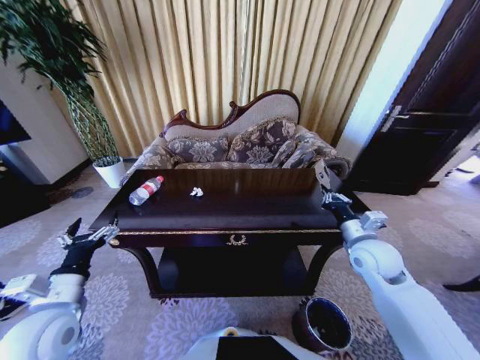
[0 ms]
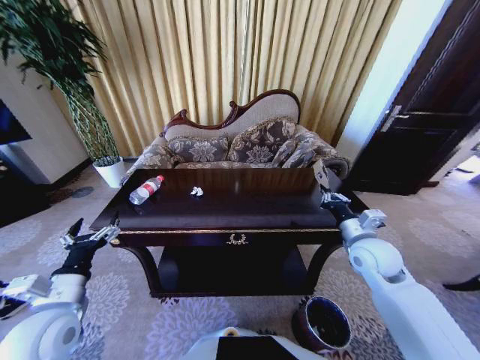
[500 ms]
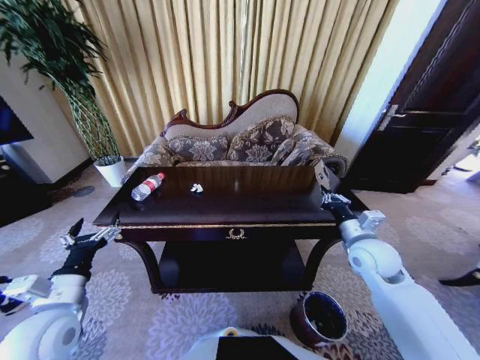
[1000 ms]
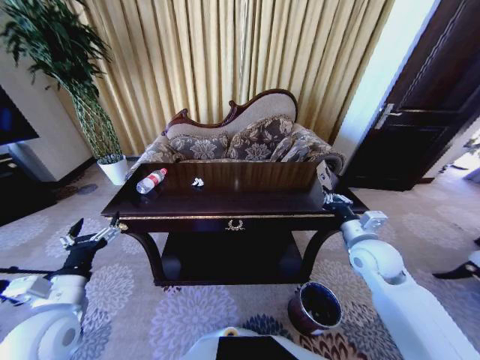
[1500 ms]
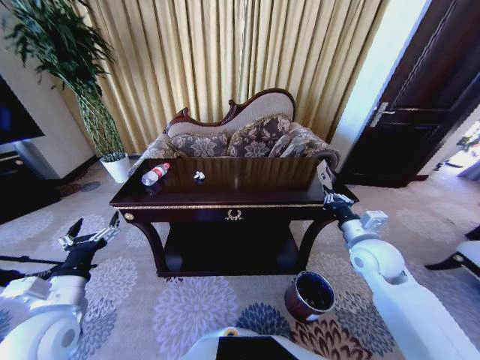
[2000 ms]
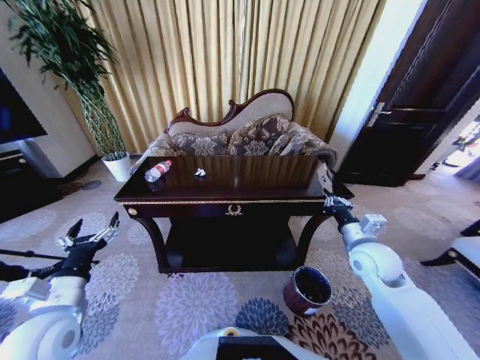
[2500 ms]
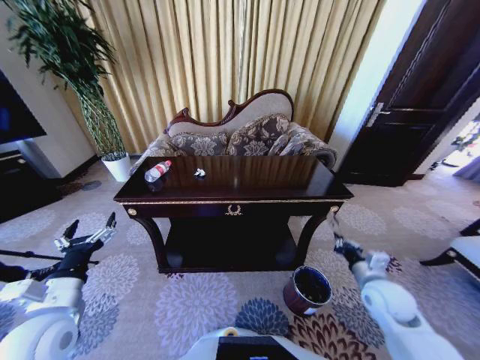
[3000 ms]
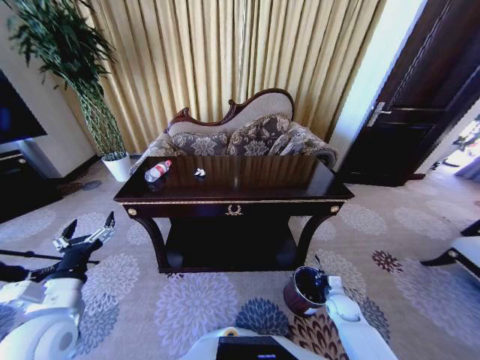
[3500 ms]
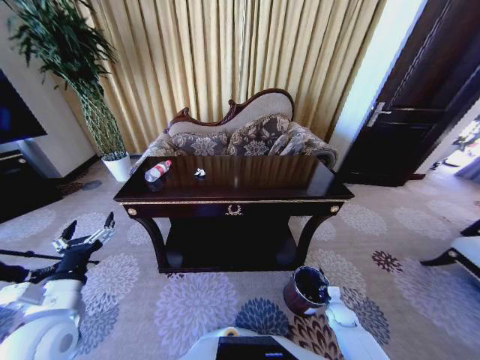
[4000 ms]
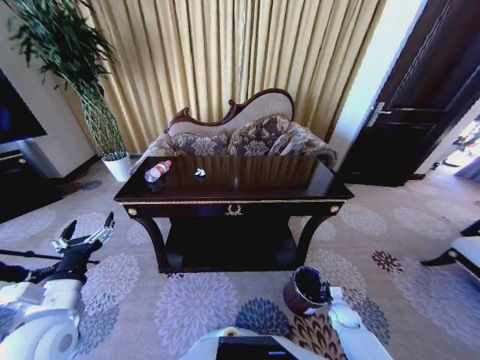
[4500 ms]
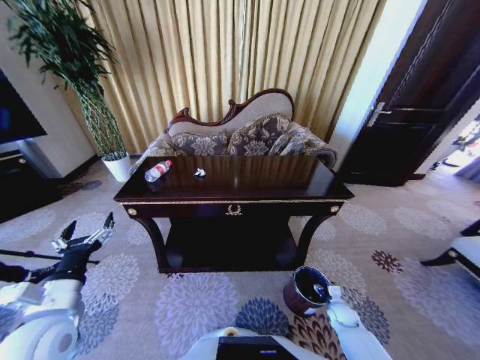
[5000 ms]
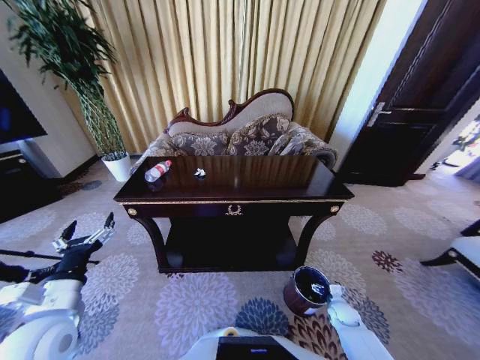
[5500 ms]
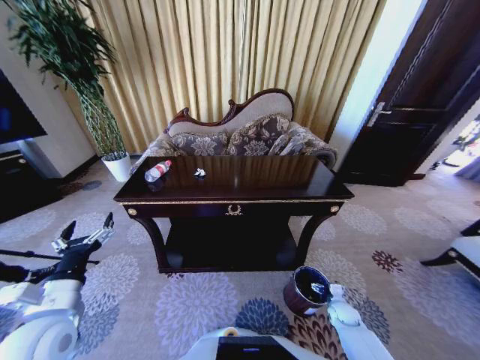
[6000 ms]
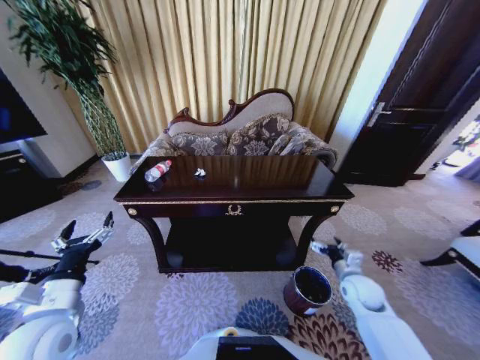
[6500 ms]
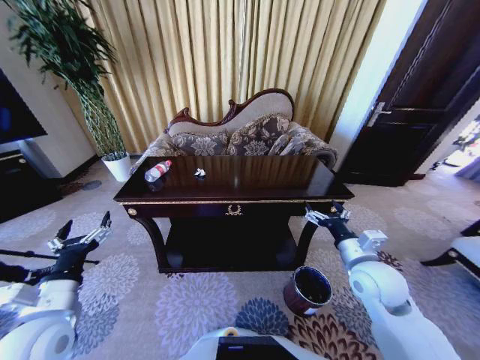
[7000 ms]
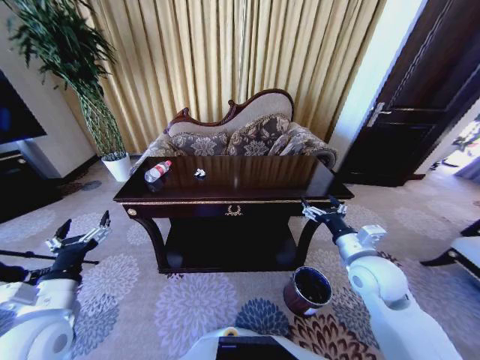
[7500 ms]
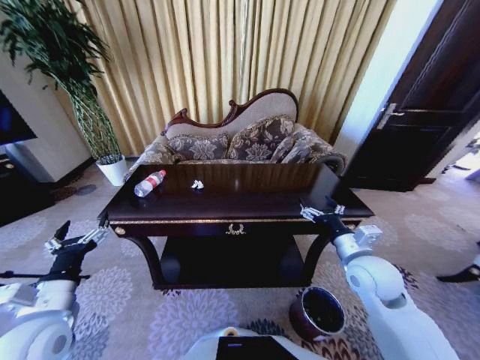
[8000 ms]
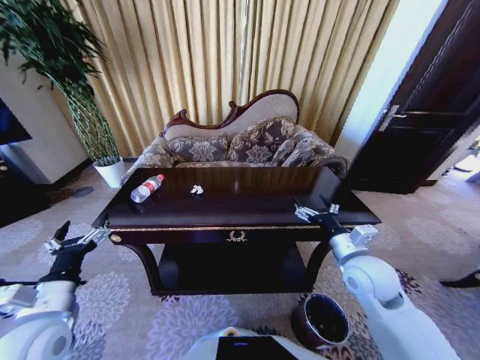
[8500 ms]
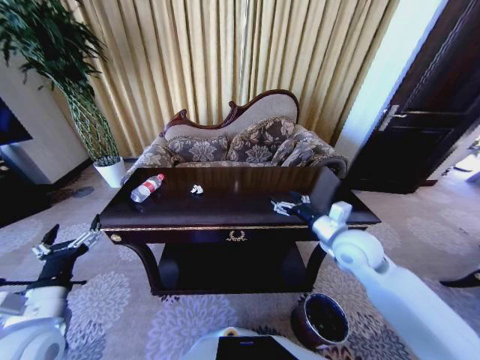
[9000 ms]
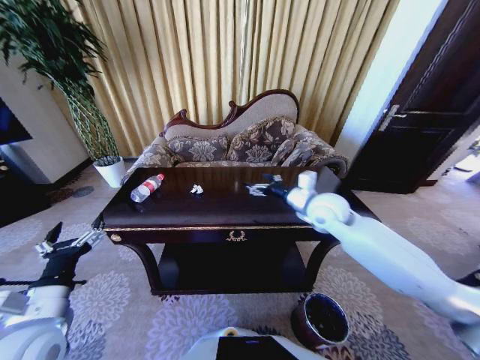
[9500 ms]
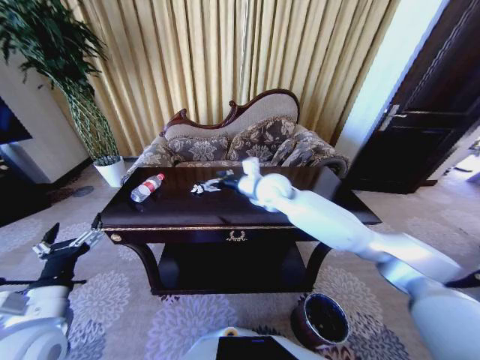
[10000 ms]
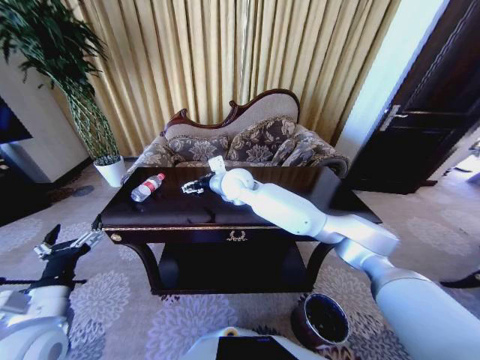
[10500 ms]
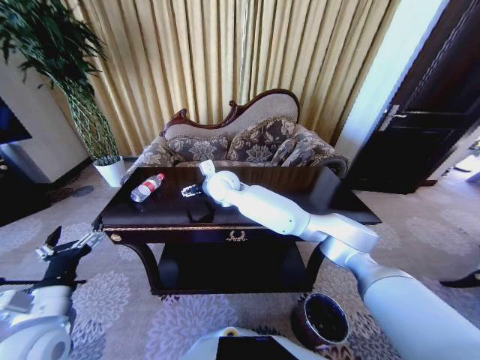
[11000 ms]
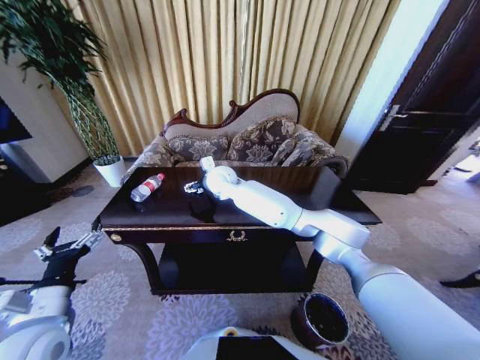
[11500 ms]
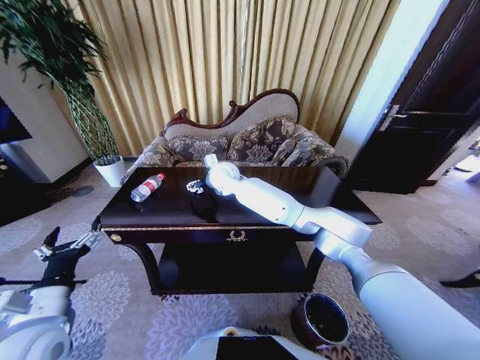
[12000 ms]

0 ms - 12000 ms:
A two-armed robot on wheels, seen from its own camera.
Task of the whole recording: Move to the front of the table and place the trash on the table into the trash bin.
2000 ms - 4000 ms: The right gripper moves downward, some 35 cm.
4000 ms - 6000 ms: The right gripper opens.
6000 ms - 8000 ms: The right gripper moves upward, some 35 cm.
8000 ms - 10000 ms: The right gripper is displaced to the left, forward and upward by some 30 cm.
10000 ms - 12000 ms: The right gripper travels to the left and forward by roughly 15 cm.

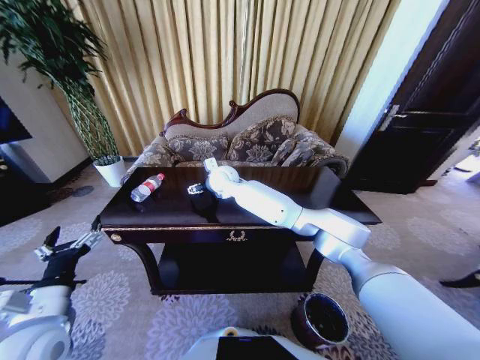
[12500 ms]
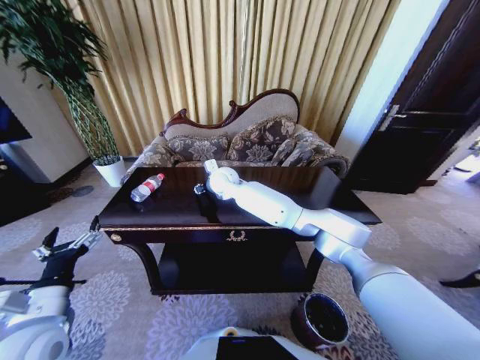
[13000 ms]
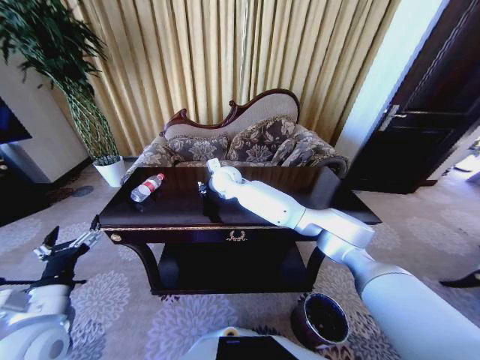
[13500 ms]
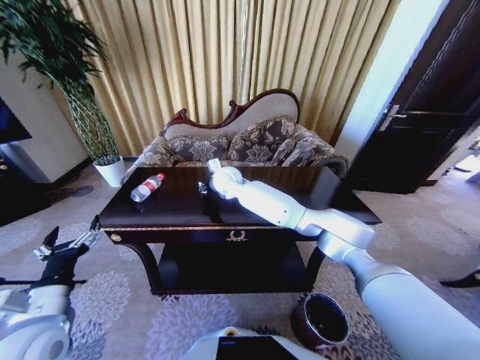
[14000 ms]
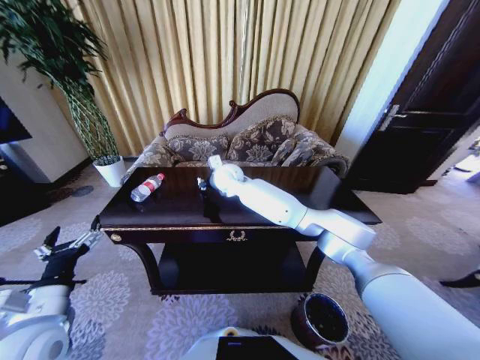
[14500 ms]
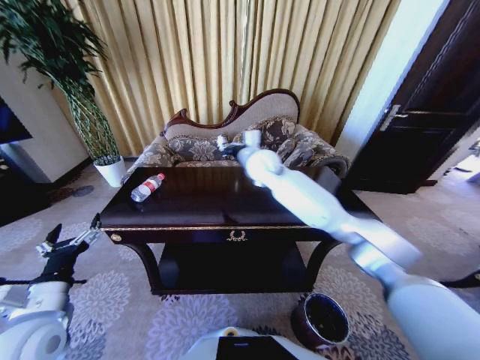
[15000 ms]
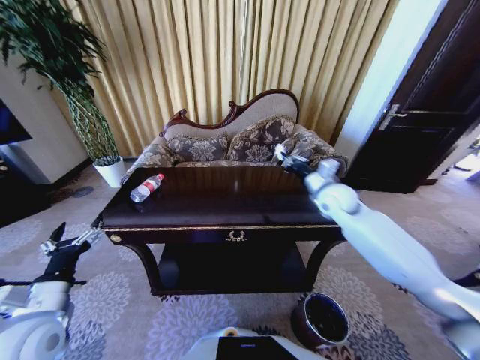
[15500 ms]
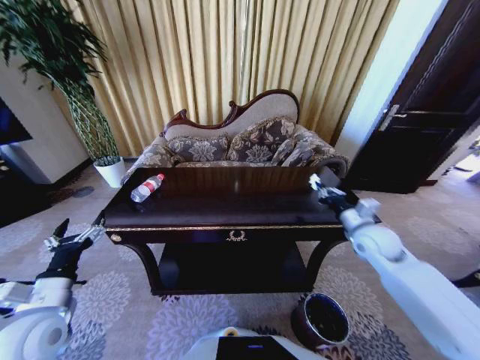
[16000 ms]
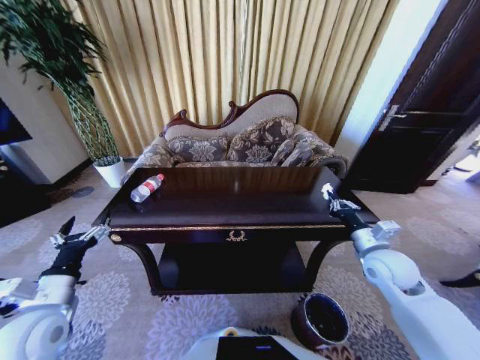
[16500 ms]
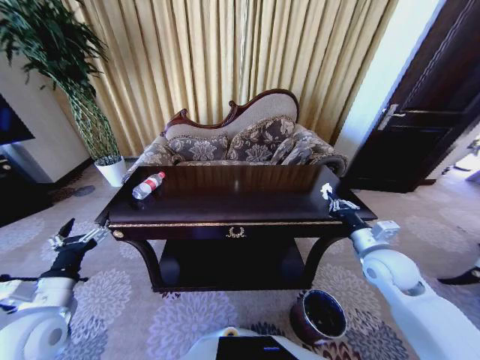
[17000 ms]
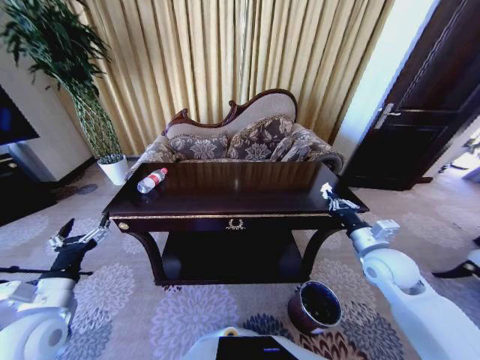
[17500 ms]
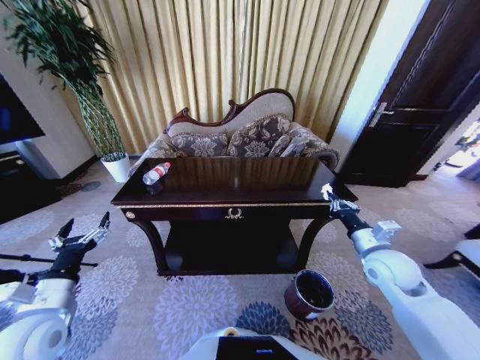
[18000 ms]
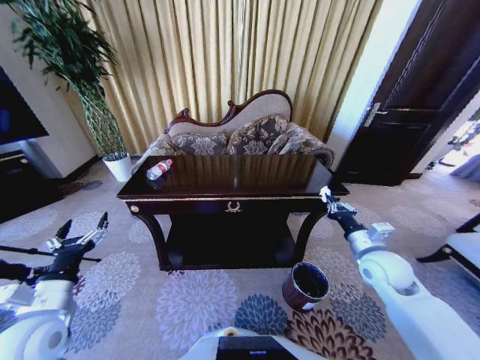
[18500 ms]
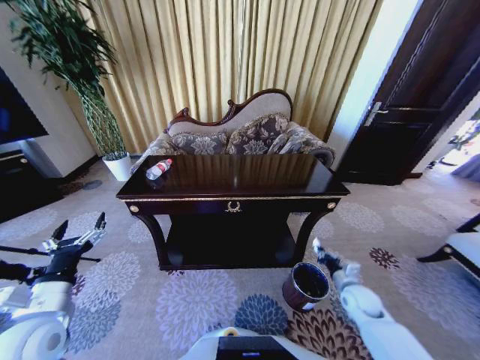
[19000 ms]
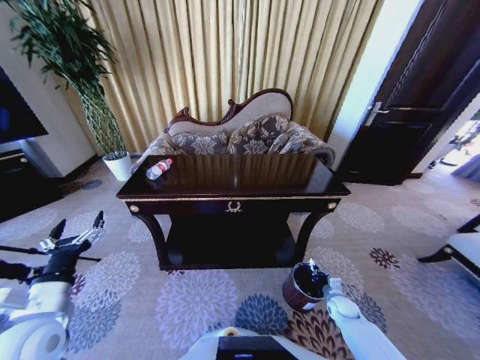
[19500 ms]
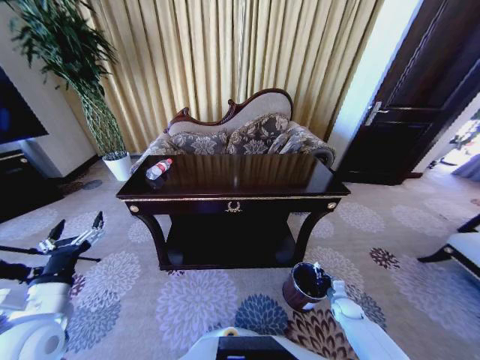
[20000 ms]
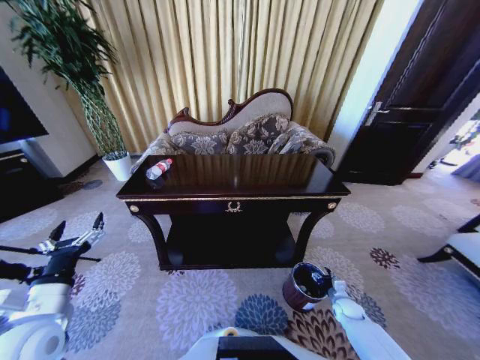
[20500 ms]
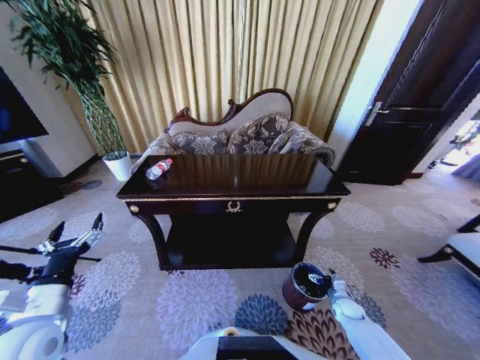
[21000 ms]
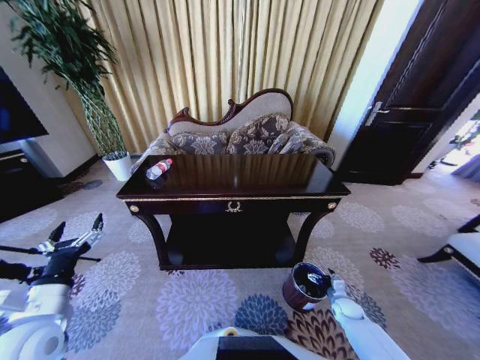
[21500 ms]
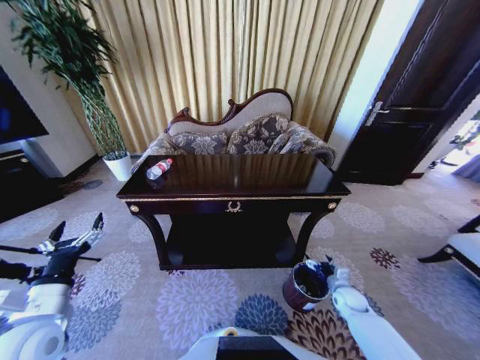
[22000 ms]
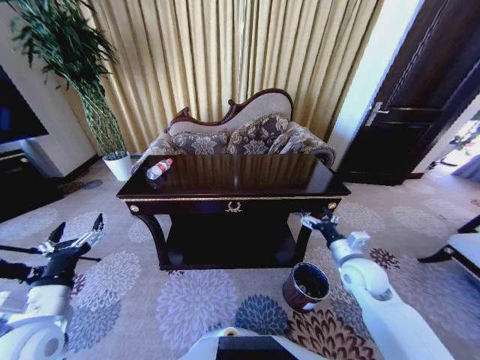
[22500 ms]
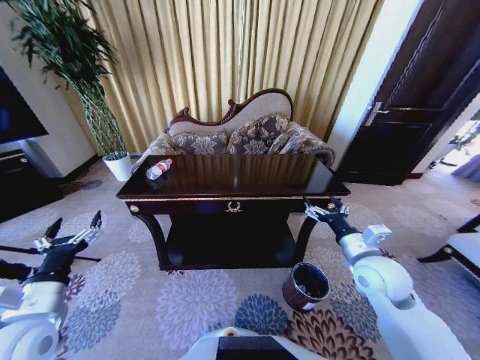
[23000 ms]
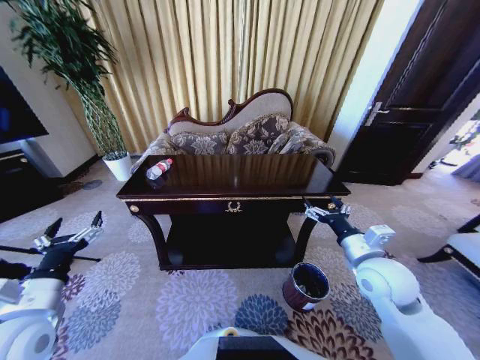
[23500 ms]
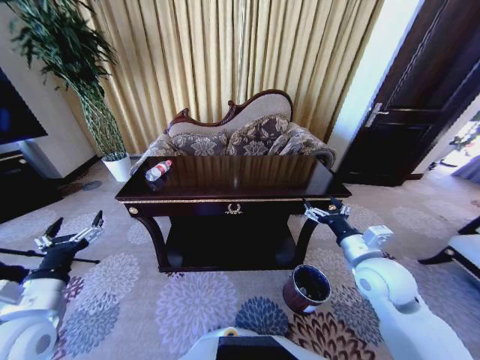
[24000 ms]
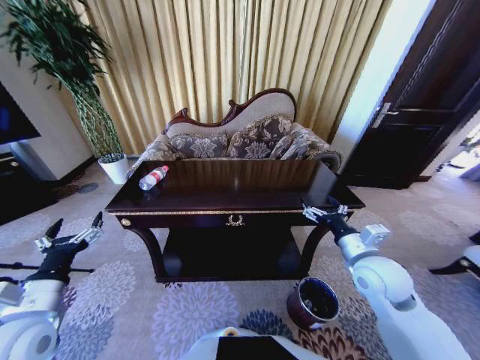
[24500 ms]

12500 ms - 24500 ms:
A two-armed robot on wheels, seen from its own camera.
Task of the whole recording: Move to the front of the table and place the trash on the table into the trash bin.
12500 ms - 14500 ms: The right gripper closes up.
14500 ms - 16500 ms: The right gripper moves to the right and backward, roughly 50 cm.
18500 ms - 20500 ms: The right gripper shifts about 30 cm downward, and opens.
20500 ms - 22500 ms: The right gripper moves upward, some 30 cm, and opens up.
22500 ms - 24500 ms: The right gripper goes some 5 cm upward.

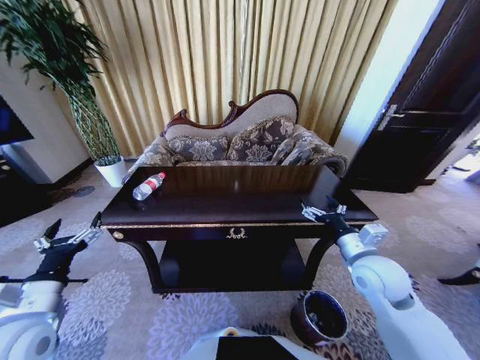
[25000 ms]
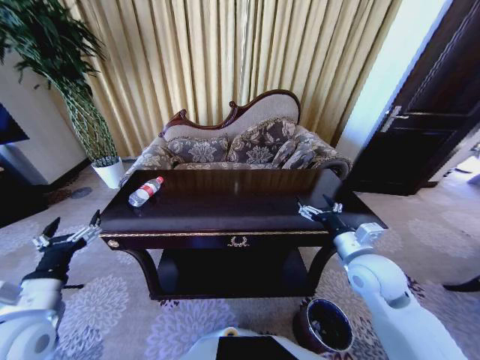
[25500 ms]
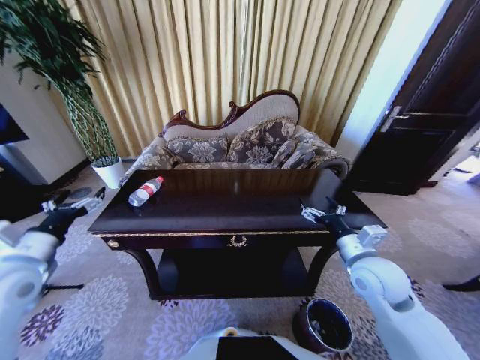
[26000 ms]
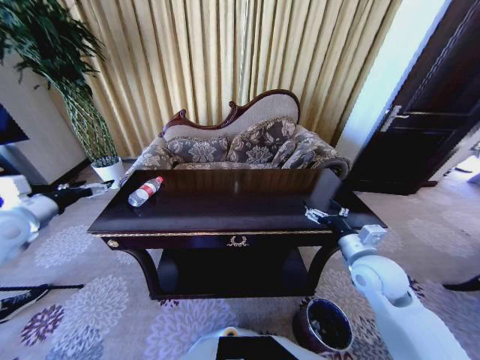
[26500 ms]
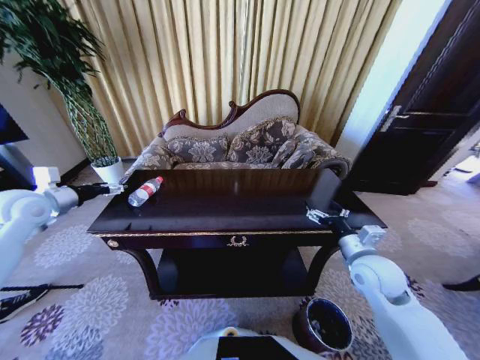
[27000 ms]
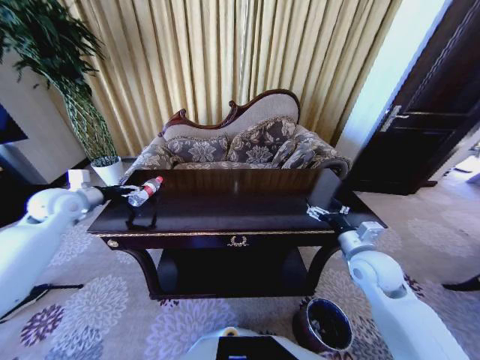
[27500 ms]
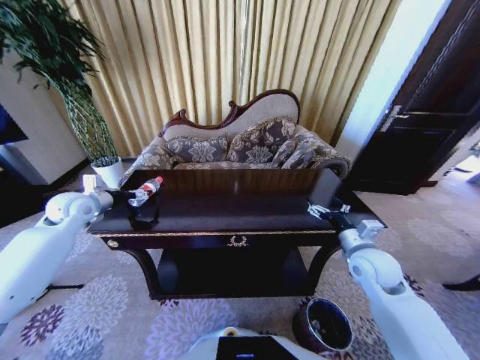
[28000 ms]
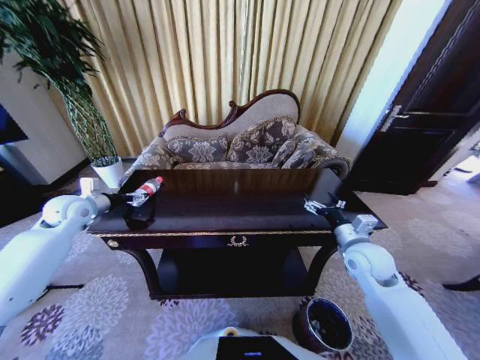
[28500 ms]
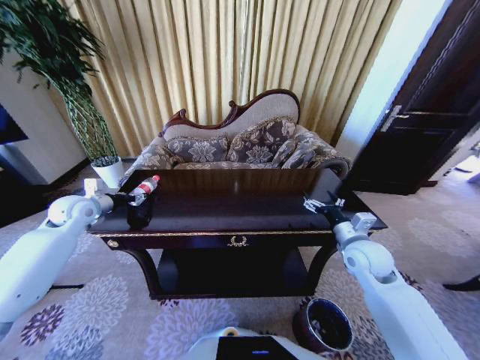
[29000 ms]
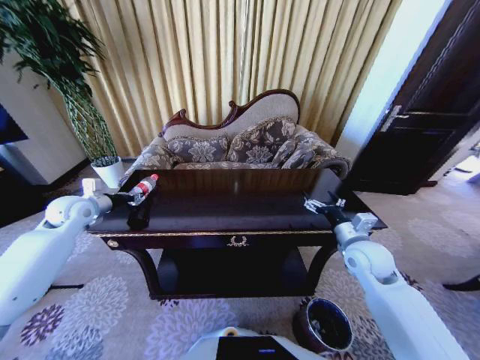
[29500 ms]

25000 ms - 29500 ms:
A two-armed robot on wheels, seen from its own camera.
Task of the whole recording: Move to the front of the table and place the trash on the table into the trash bin.
25000 ms - 27000 ms: The left gripper heads forward, upward and to the left, covering approximately 25 cm.
27000 ms - 29500 ms: The left gripper moves downward and forward, about 10 cm, and closes up.
